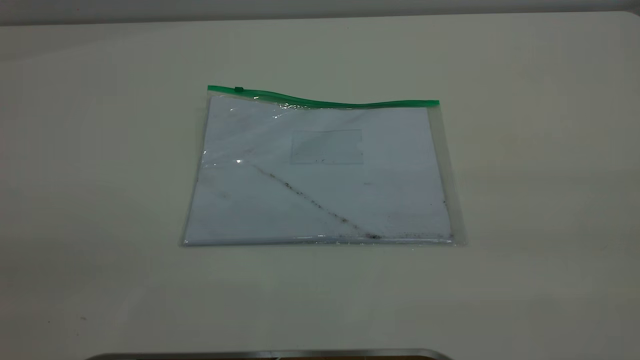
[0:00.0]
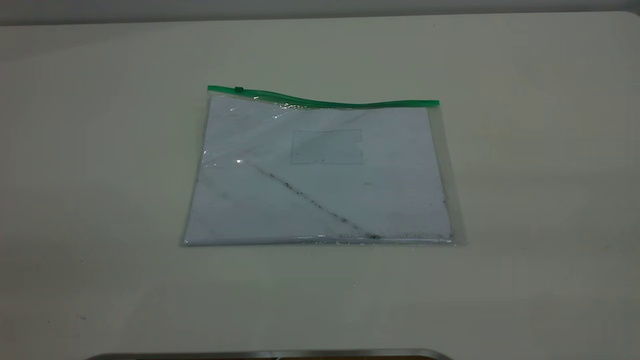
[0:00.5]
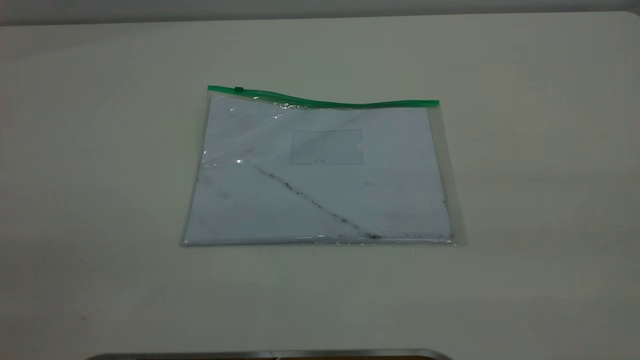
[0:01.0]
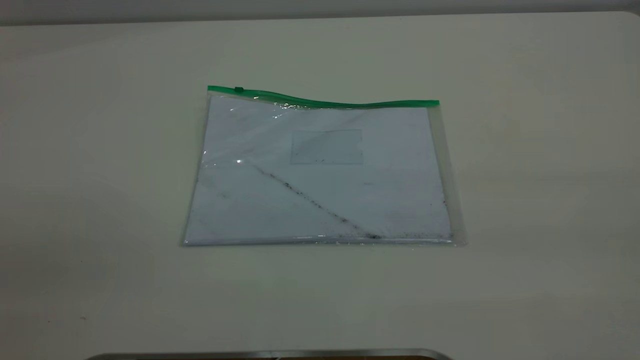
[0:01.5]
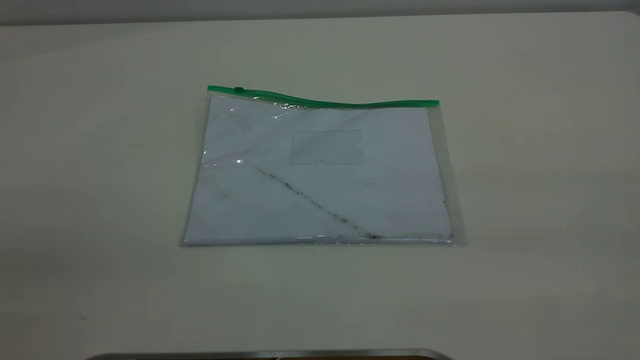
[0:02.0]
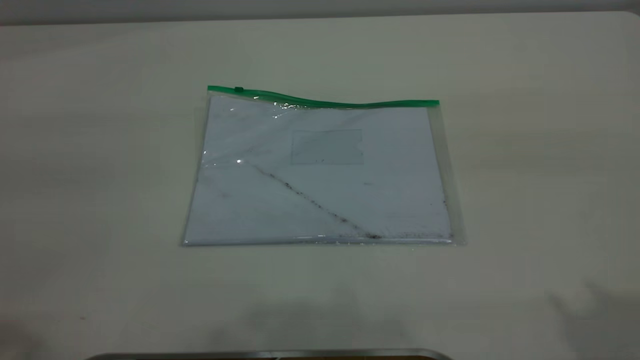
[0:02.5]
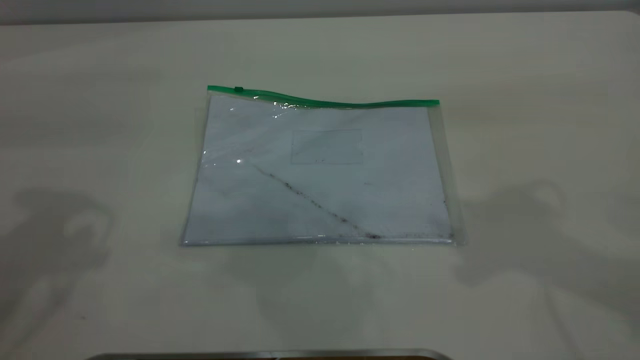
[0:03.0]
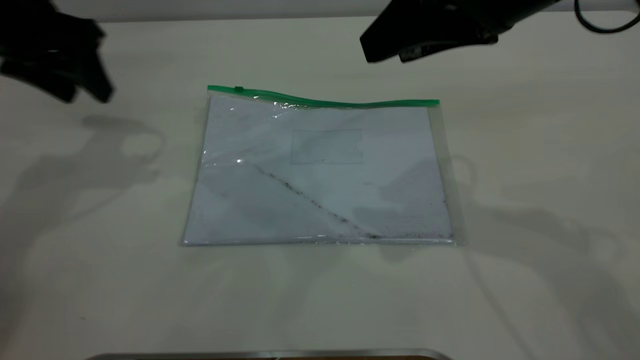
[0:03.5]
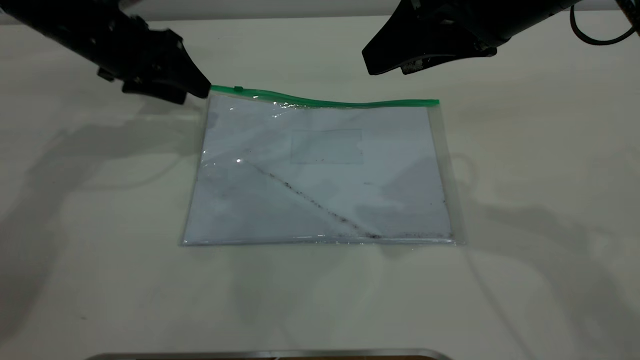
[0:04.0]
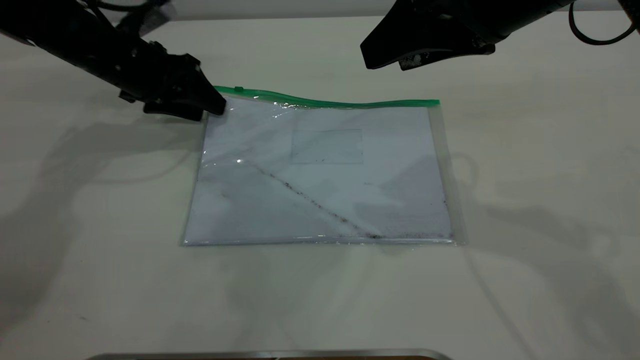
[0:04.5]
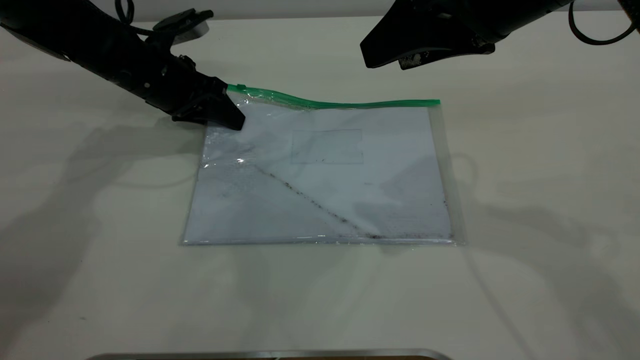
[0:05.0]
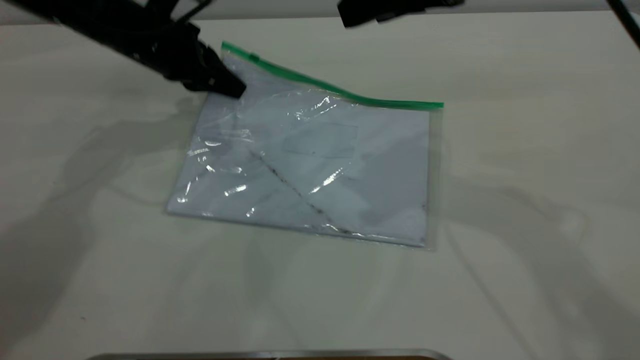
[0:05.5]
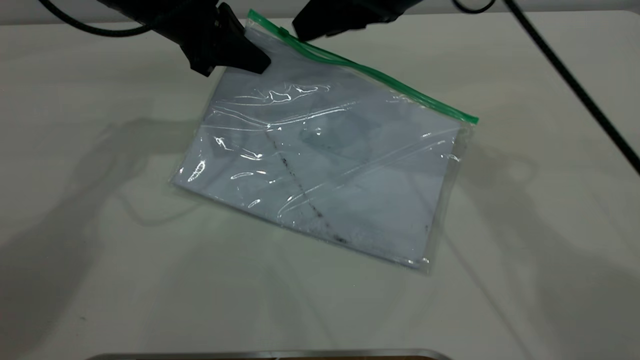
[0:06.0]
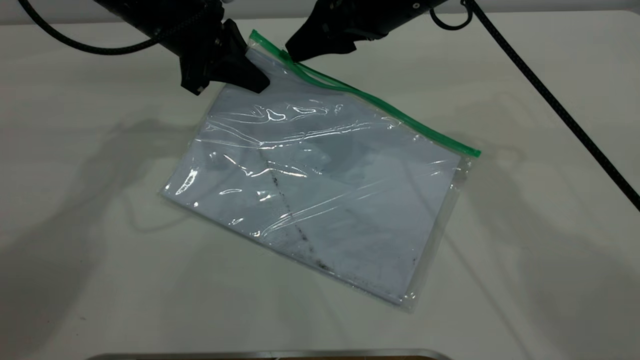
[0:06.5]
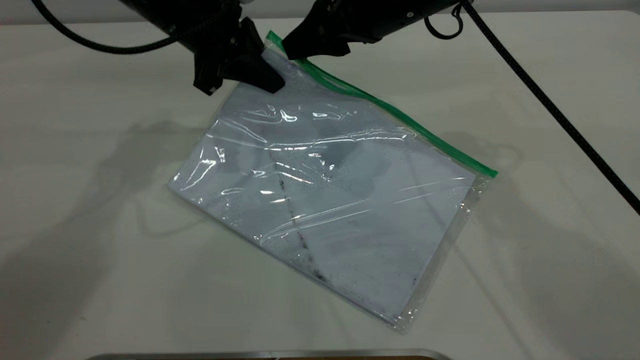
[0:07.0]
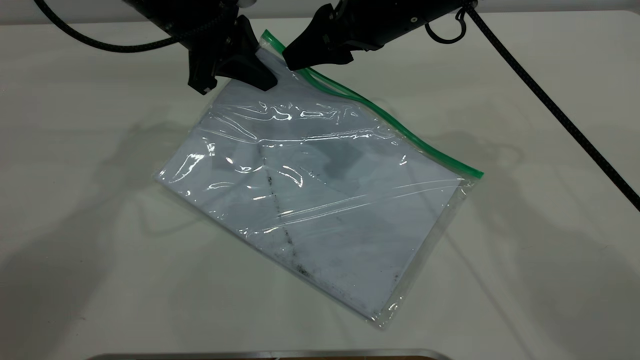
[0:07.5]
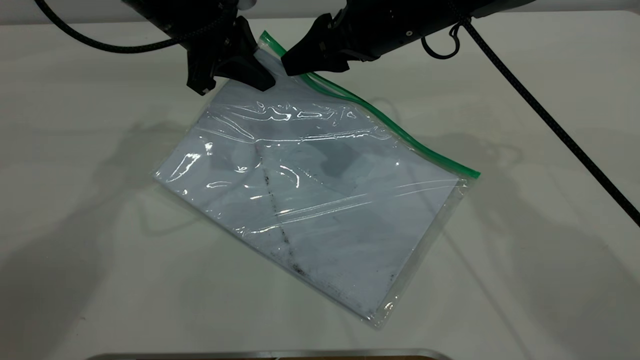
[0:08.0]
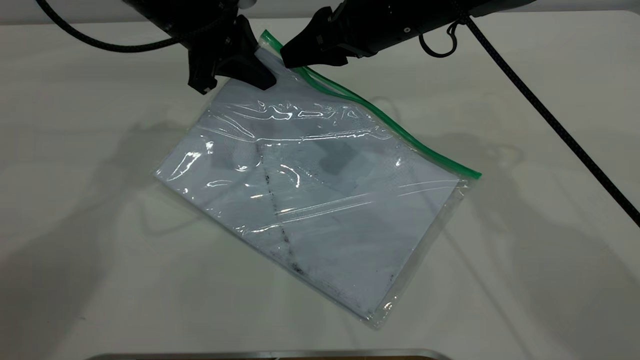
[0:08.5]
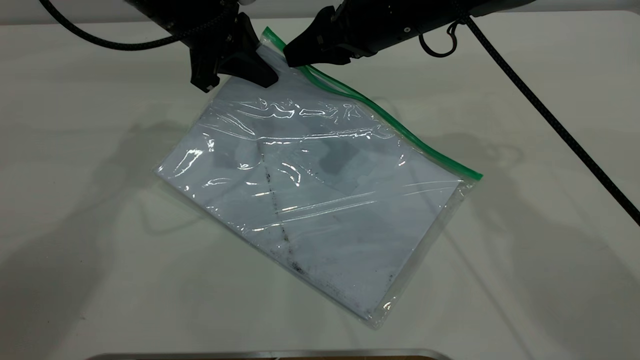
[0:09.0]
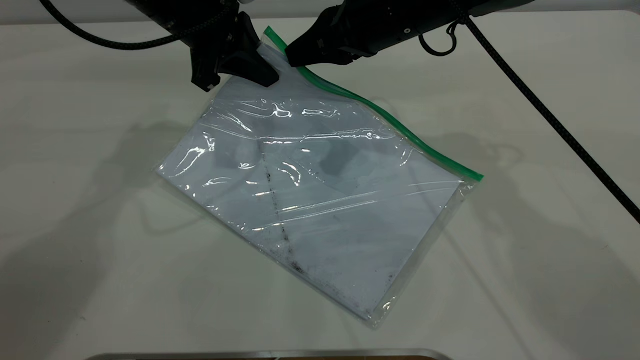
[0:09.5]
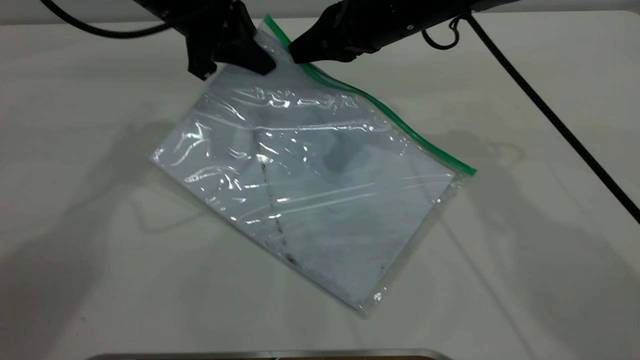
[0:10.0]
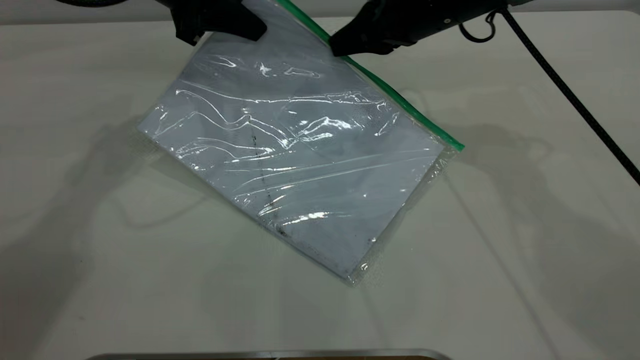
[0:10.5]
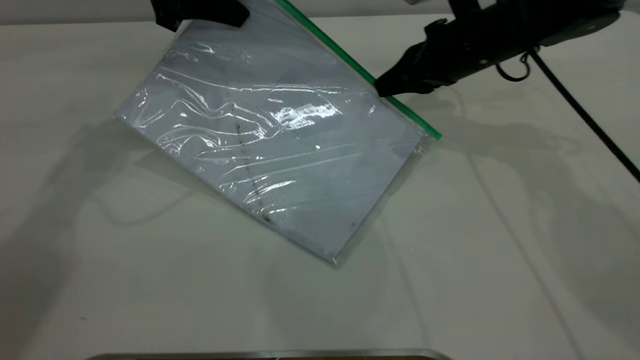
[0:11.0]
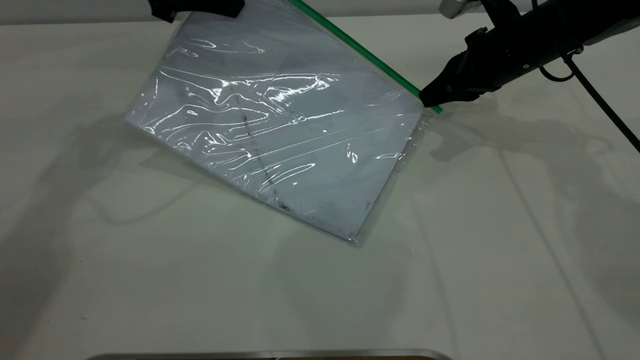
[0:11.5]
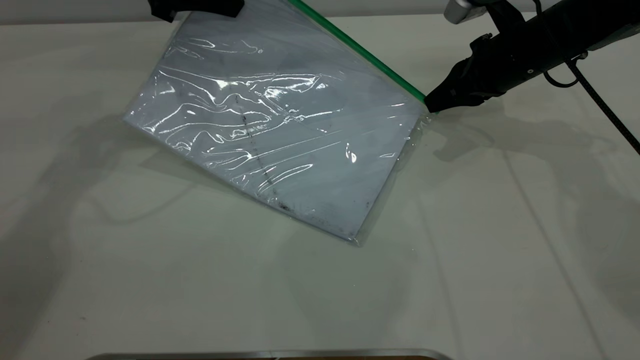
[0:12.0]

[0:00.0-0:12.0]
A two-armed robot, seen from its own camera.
Step, 0:00.0 to 0:05.0: Pick up the transparent plastic bag with the left gripper.
0:02.0 to 0:04.0: The left gripper goes some 50 cm forward and downward; the right gripper moves forward and to the left, some 35 cm, and opens.
0:04.0 to 0:06.0: The right gripper travels forward and to the left by some 10 cm. The left gripper shifts about 10 cm to the right, and closes its fingers.
0:06.0 to 0:08.0: The right gripper goes approximately 5 cm downward.
0:08.0 to 0:10.0: The right gripper closes its fingers.
0:10.0 to 0:12.0: The right gripper shifts some 15 cm to the right and downward. The left gripper changes place by about 5 cm.

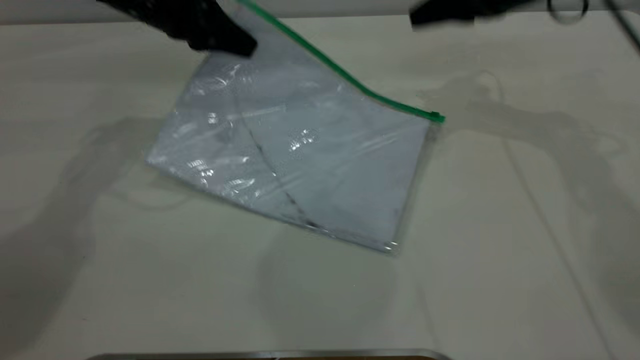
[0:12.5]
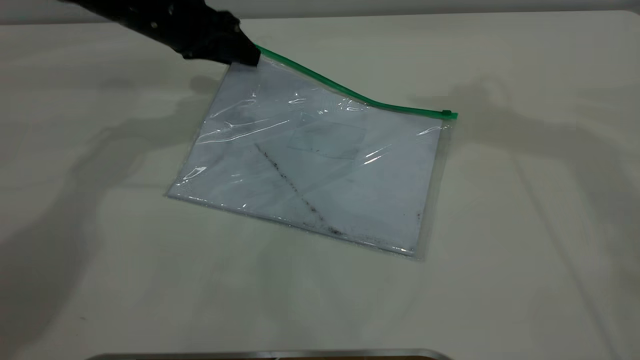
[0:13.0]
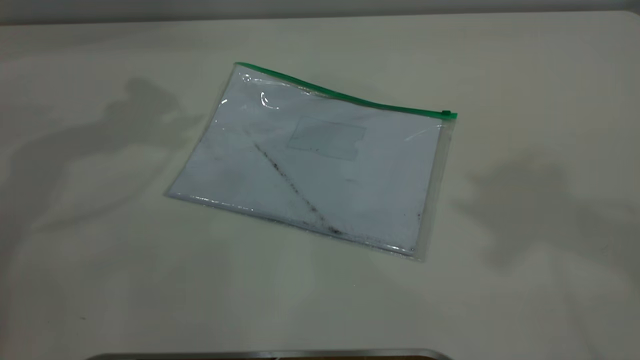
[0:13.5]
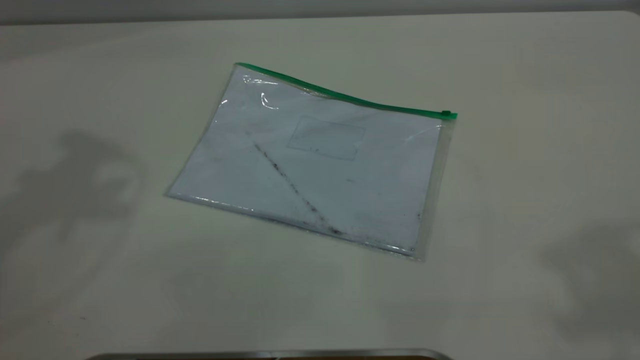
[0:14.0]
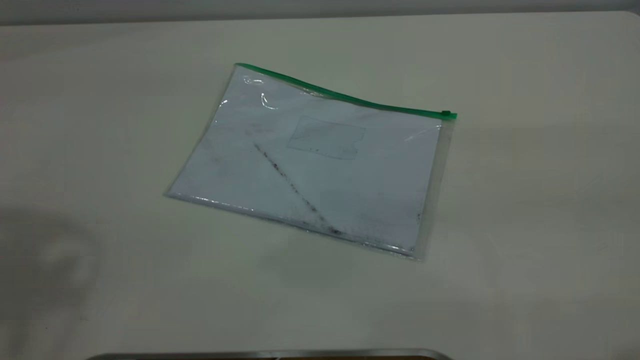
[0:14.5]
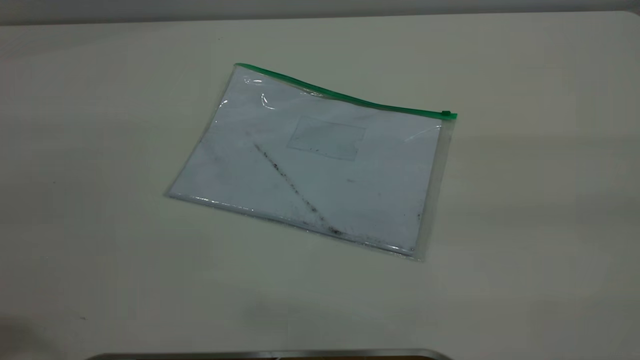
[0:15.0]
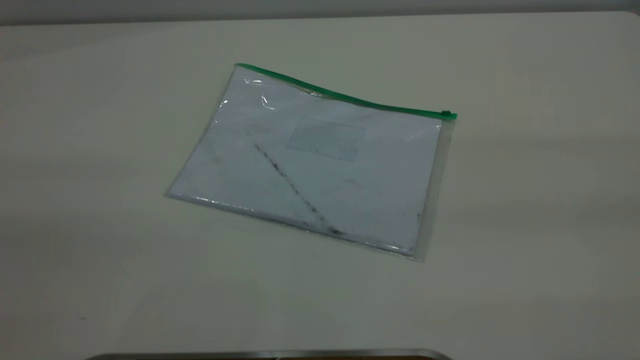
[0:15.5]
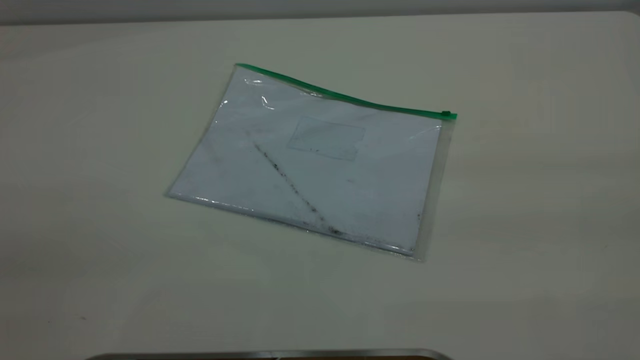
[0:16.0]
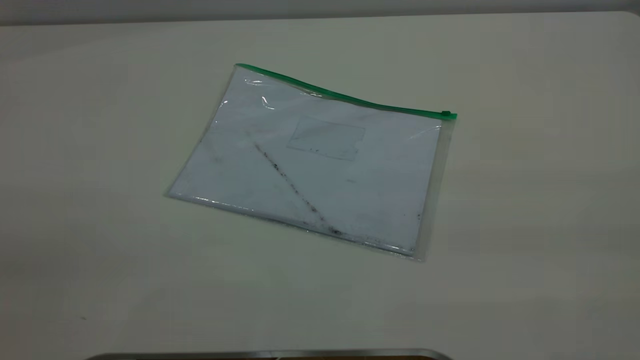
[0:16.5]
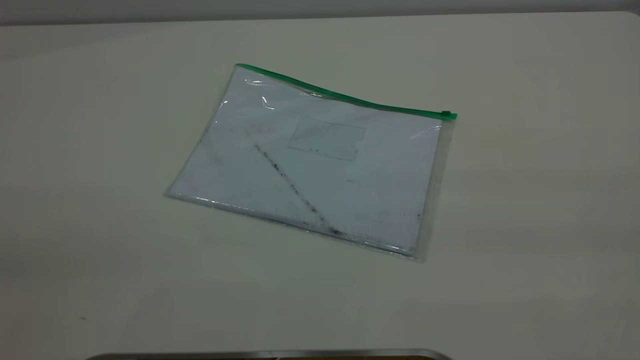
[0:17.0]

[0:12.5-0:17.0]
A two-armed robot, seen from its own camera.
Step, 0:12.5 to 0:13.0: Place the transparent plastic bag.
0:12.5 to 0:14.5: The left gripper shifts roughly 40 cm upward and backward, and opens. Meanwhile the right gripper heads backward and upward, covering approximately 40 cm.
